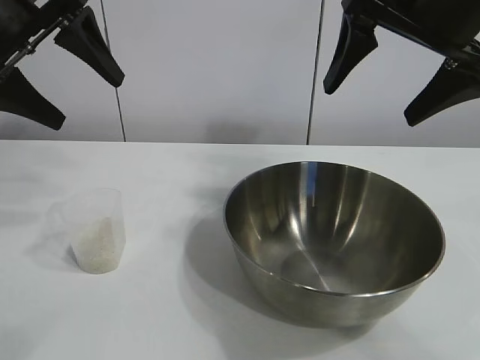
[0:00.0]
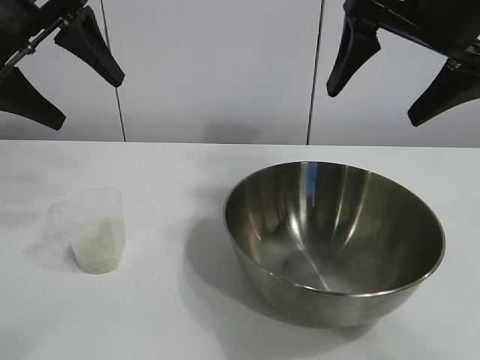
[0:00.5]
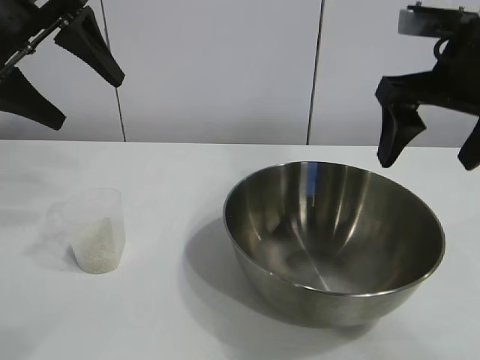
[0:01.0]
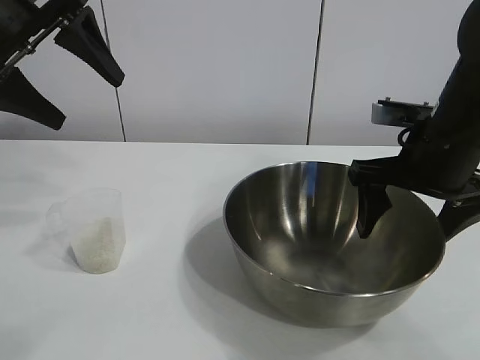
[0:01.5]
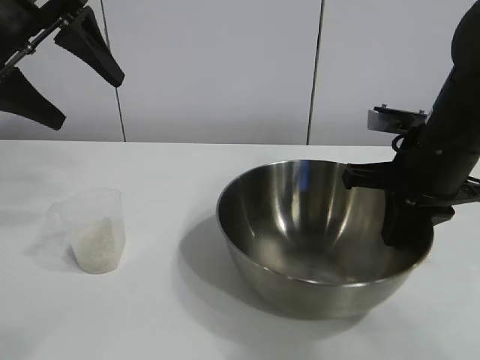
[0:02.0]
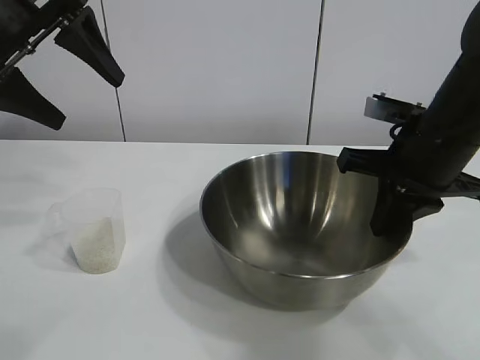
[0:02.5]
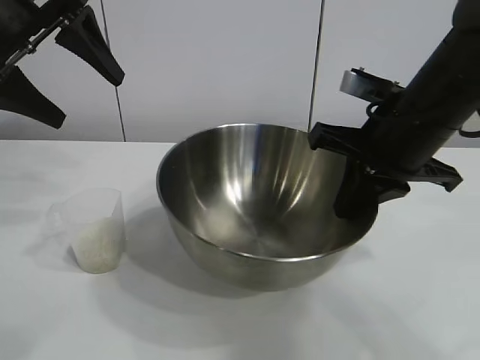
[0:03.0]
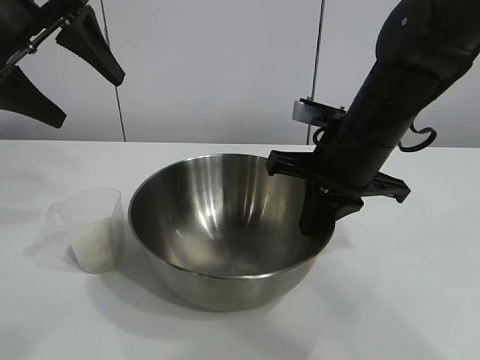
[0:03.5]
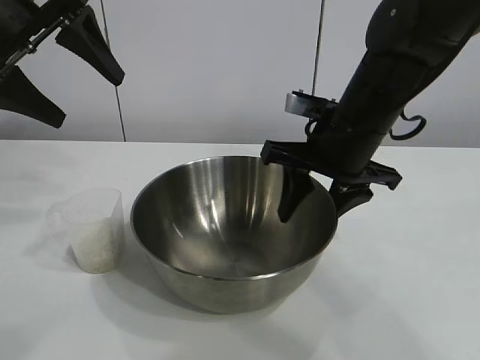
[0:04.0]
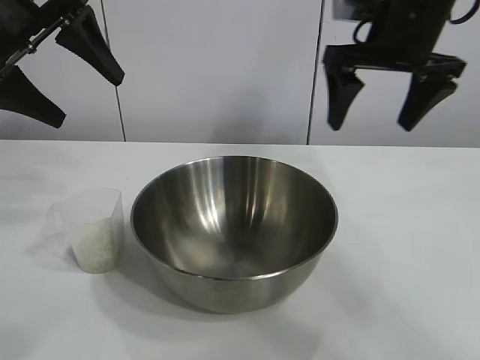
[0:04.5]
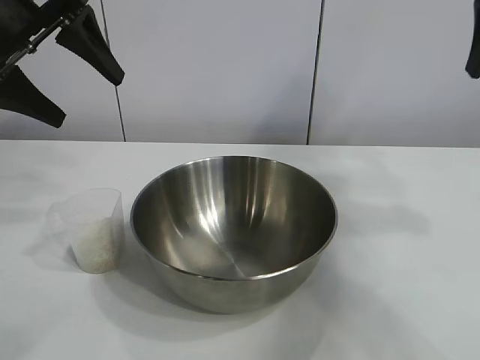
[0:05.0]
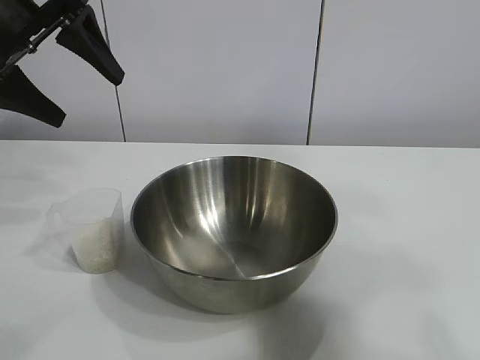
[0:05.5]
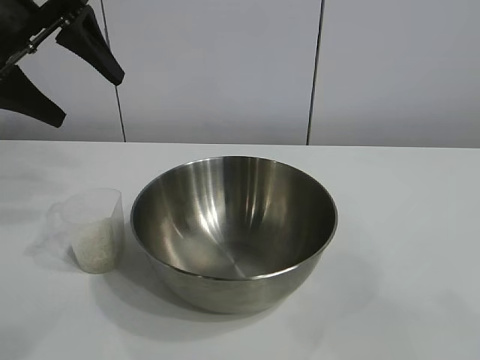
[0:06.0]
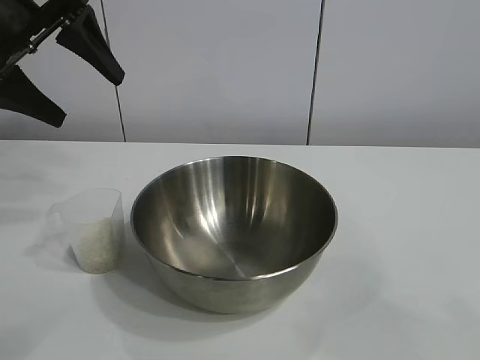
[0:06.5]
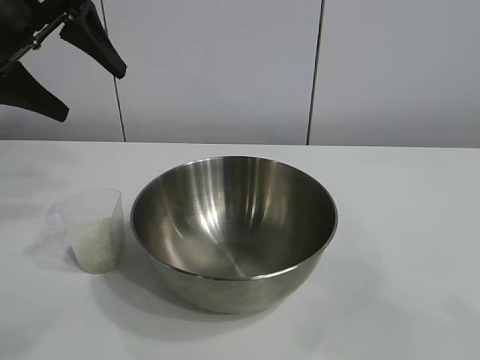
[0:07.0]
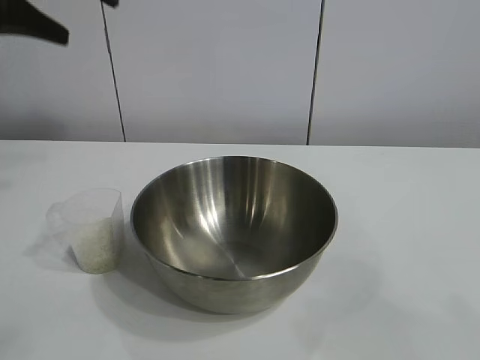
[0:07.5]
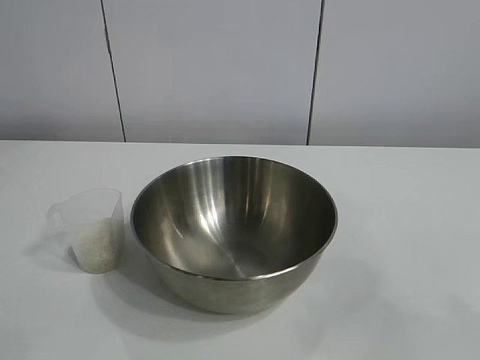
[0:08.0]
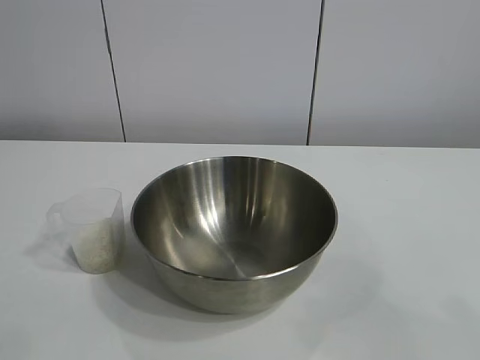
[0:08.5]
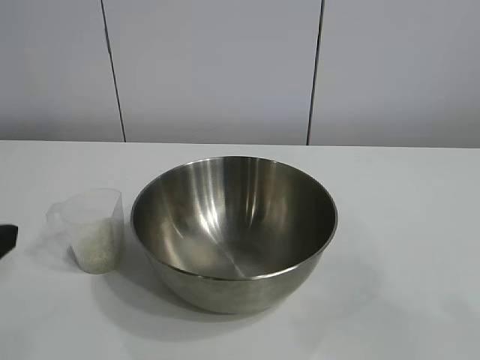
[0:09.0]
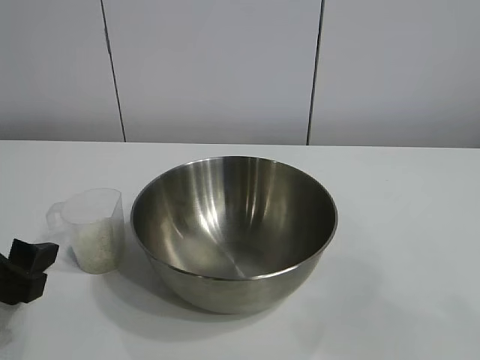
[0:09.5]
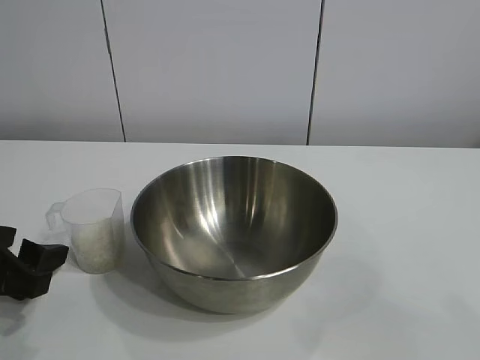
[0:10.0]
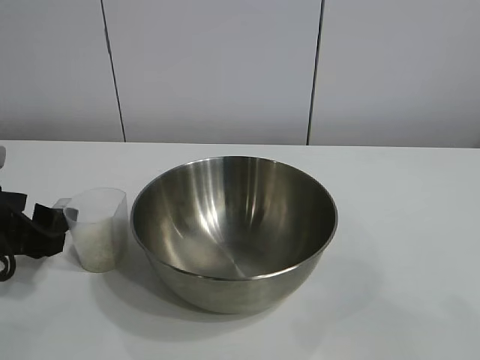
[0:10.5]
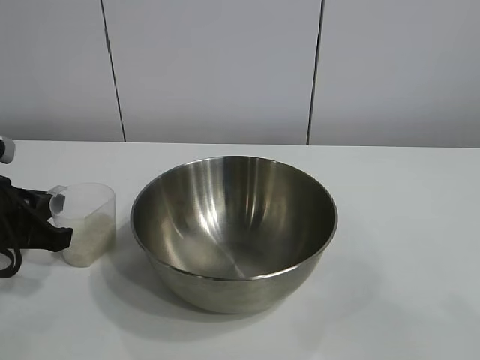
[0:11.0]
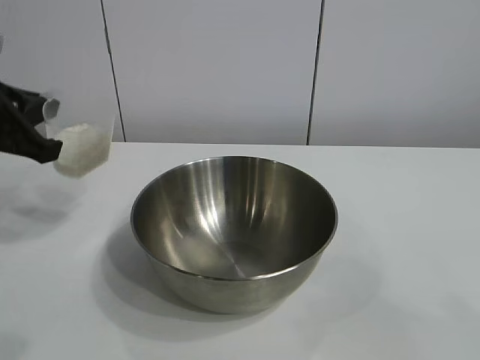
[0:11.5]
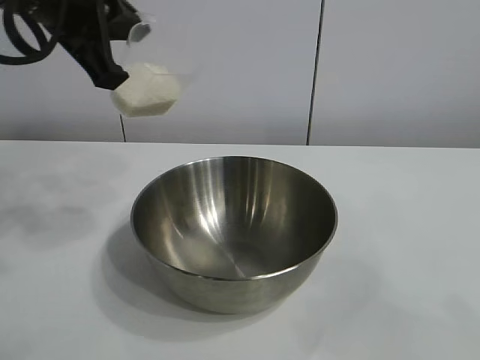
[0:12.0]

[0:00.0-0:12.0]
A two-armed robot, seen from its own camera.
Task of the whole recording: the right gripper grasp the rice container and place it in the center of the table, the left gripper grasp the rice scoop and pour the rice into the rice container.
Step, 0:01.0 to 0:04.0: Move the bowl in the center of view with right gripper.
Step, 0:04.5 to 0:11.0: Grasp the cup with rice in it with left gripper.

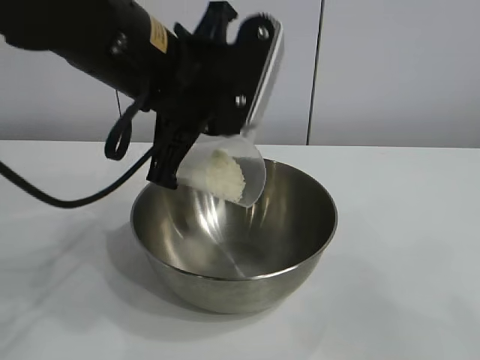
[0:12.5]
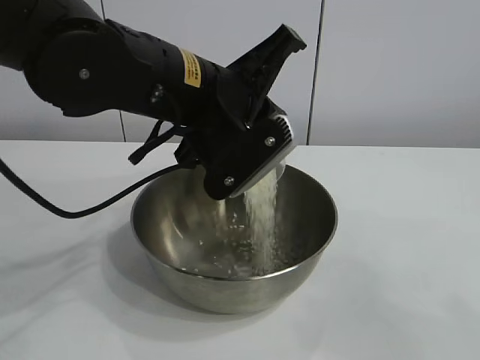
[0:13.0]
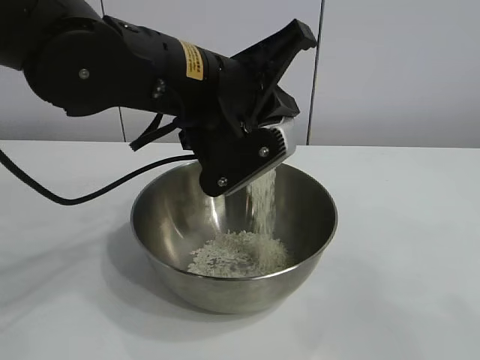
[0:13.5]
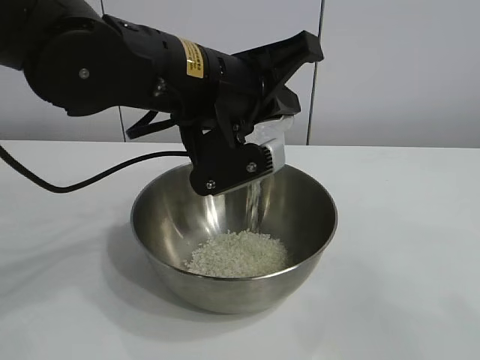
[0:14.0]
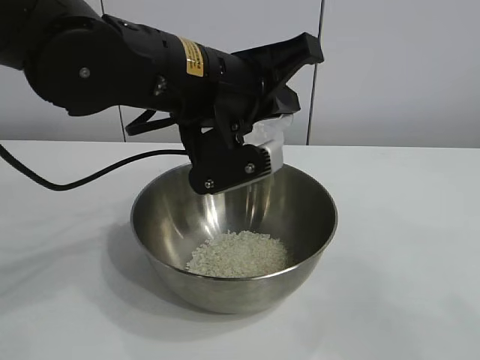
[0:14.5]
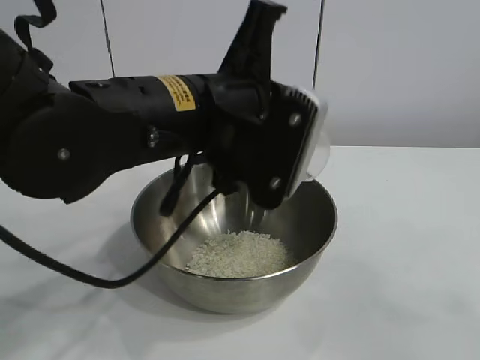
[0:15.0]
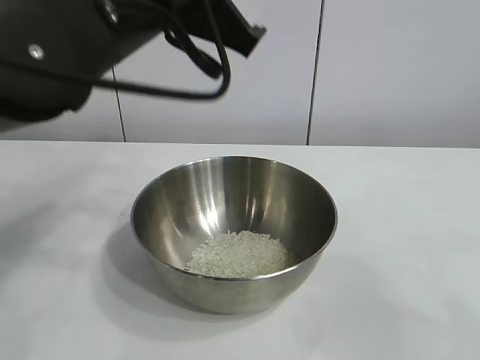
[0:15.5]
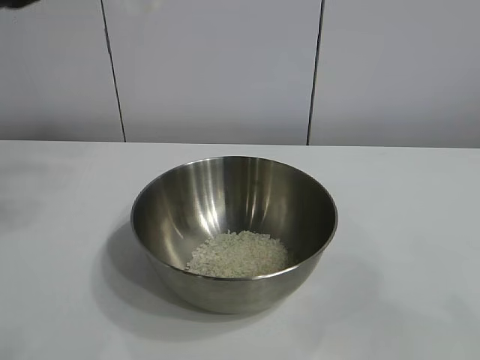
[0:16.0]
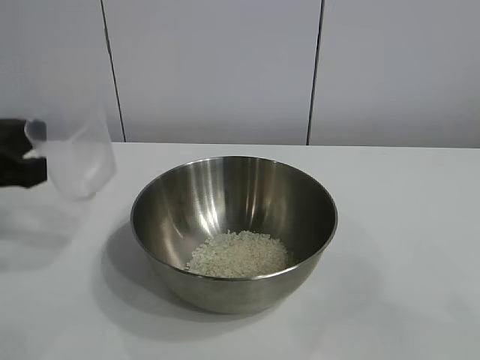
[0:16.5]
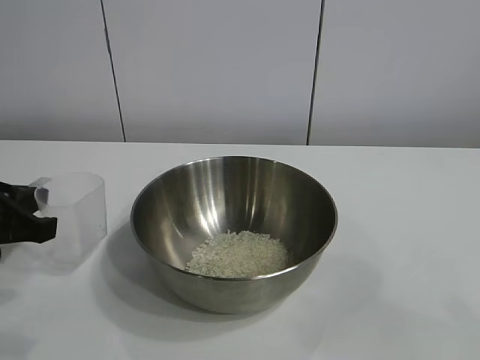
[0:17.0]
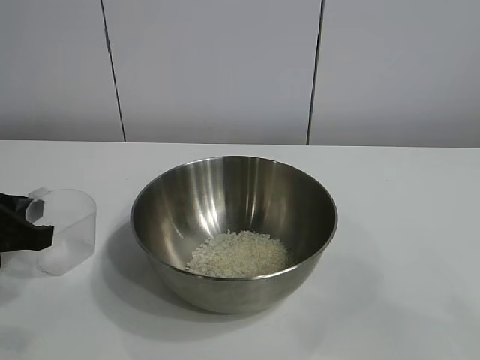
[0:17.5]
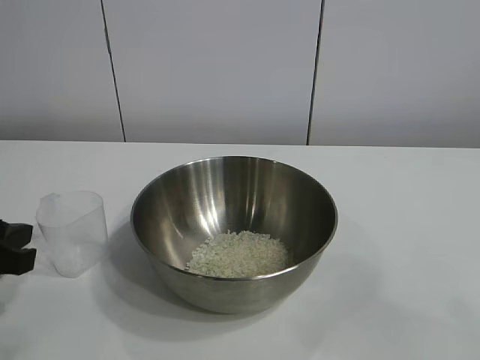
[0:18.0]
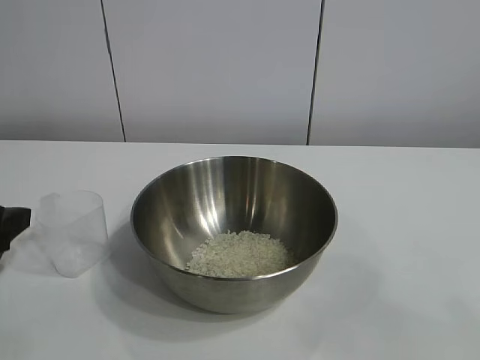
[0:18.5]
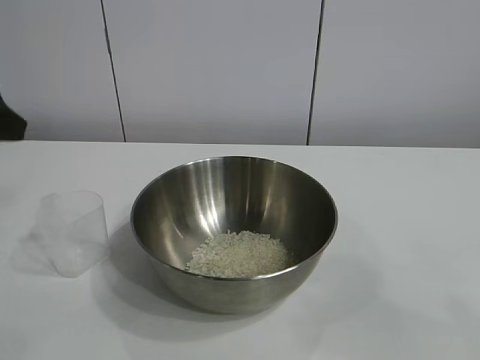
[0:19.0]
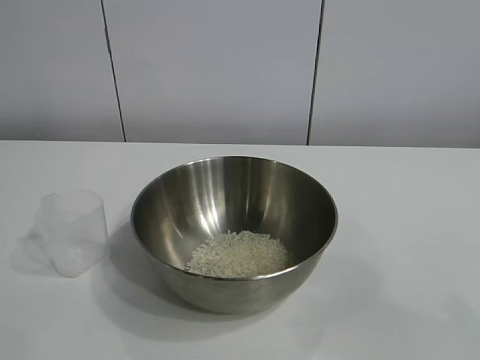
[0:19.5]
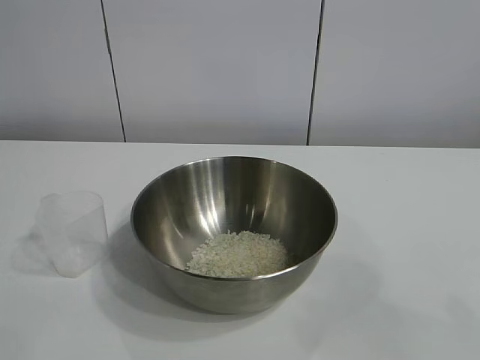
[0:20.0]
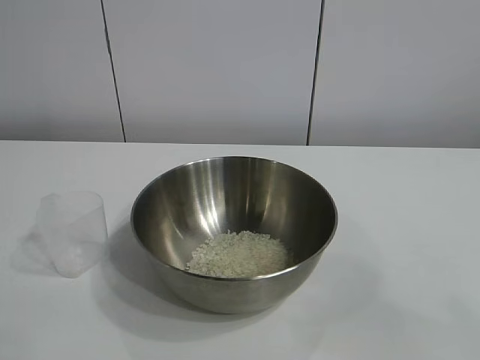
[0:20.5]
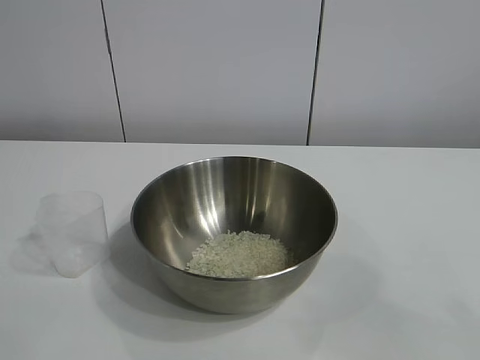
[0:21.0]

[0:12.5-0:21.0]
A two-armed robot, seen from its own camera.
Task of the whole recording: the right gripper grasp the rice container and place it in the center of the table, the left gripper grasp the rice scoop and pour the rice into the rice container.
Step, 0:15.0 to 0:17.5: Place the cup on the table with the left gripper.
